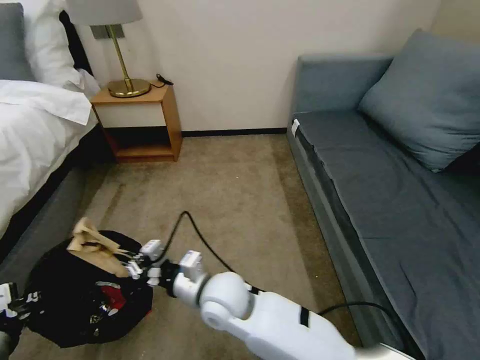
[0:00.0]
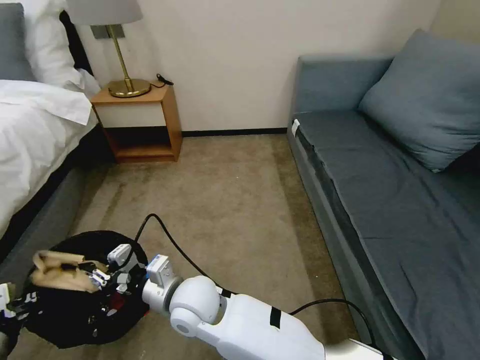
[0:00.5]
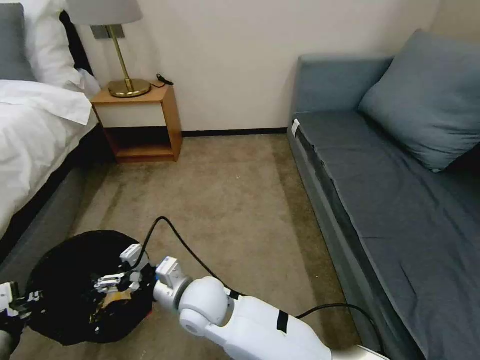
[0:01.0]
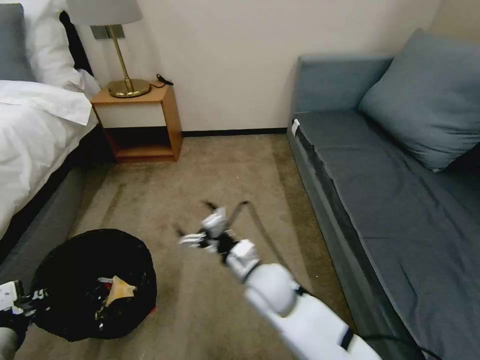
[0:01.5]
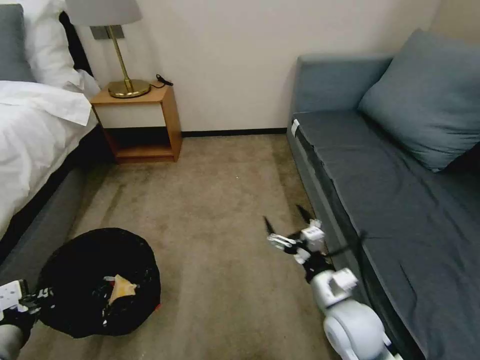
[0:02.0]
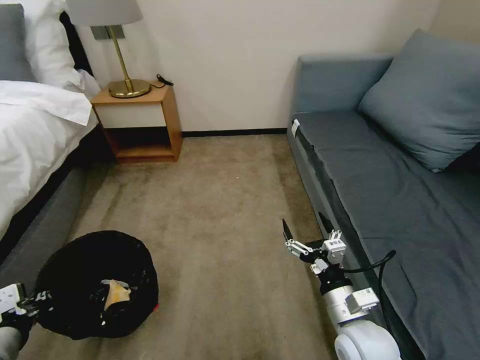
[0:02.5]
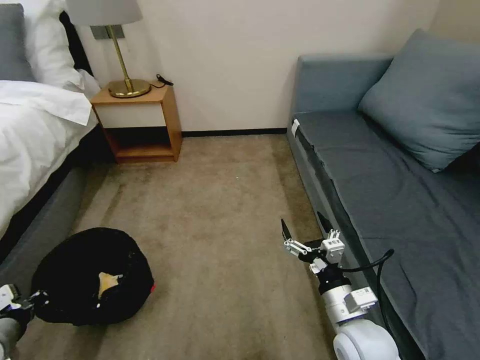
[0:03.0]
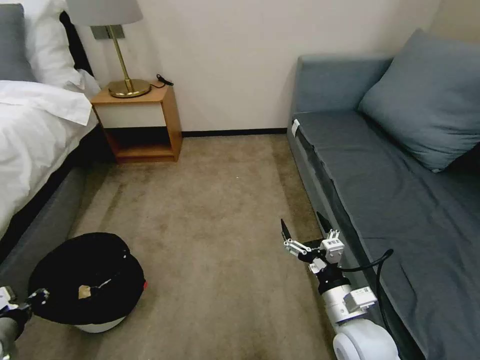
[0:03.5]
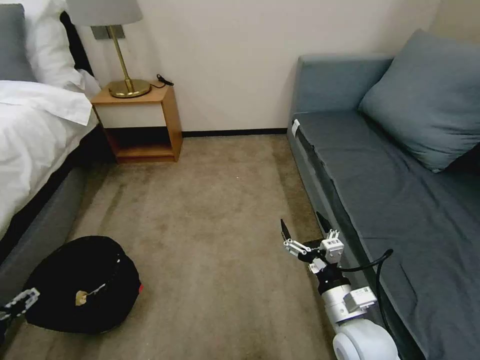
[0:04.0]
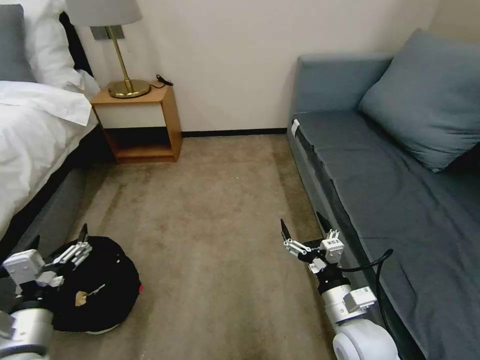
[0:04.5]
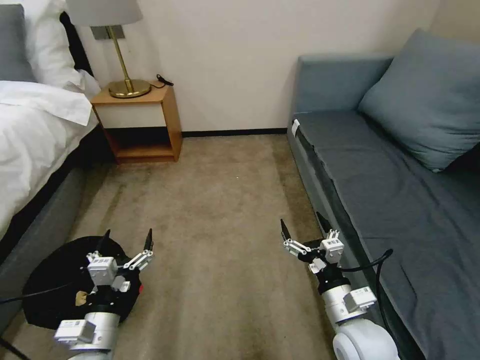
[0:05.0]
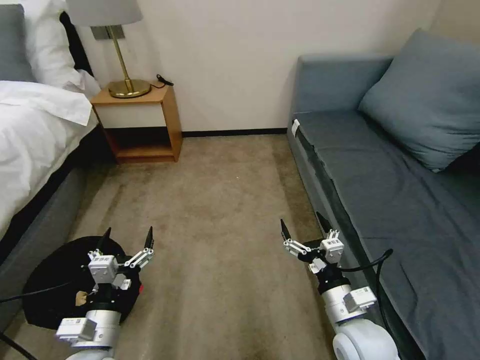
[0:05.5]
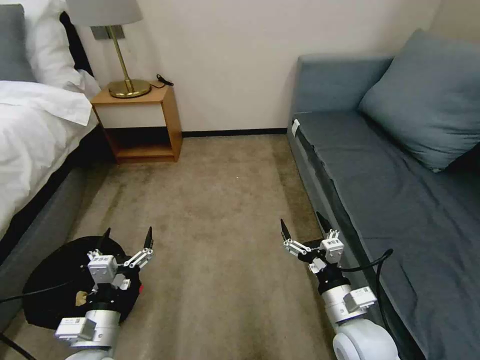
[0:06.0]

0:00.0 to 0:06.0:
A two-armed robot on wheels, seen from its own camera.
Task of the whole recording: Pick up the trash bin, then pick up the garbage on the floor and place it into the trash bin.
0:00.0 to 0:02.0: The right gripper moves to the right, roughly 25 cm, and opens up.
0:02.0 to 0:04.0: The left gripper travels to the left by approximately 5 cm, and opens up.
0:04.0 to 0:06.0: The left gripper heads to the right, covering about 20 cm.
